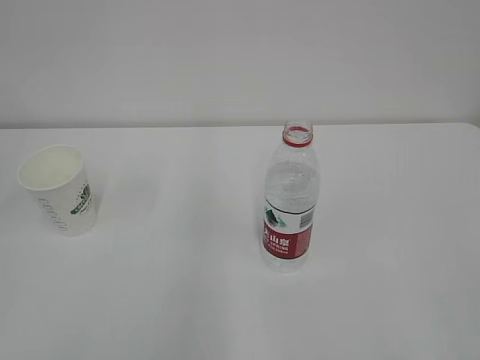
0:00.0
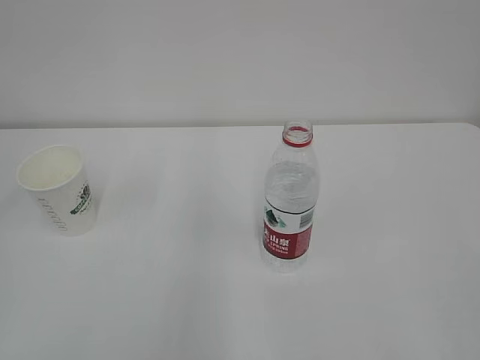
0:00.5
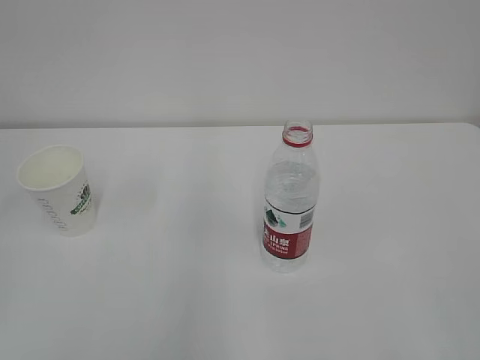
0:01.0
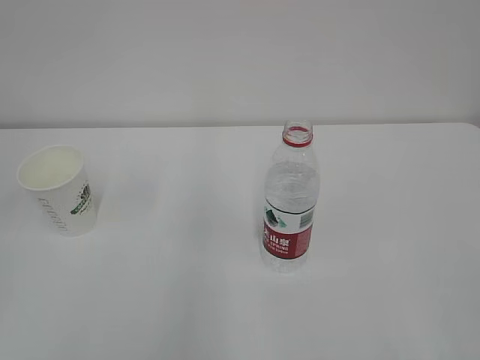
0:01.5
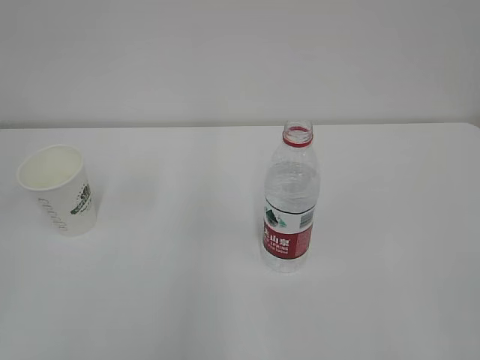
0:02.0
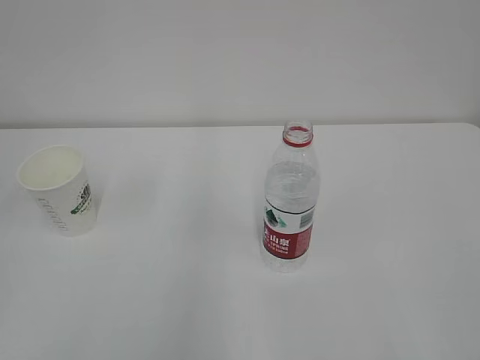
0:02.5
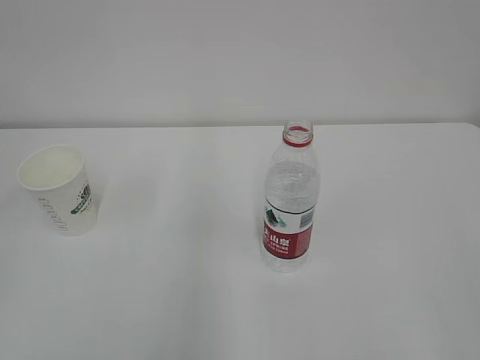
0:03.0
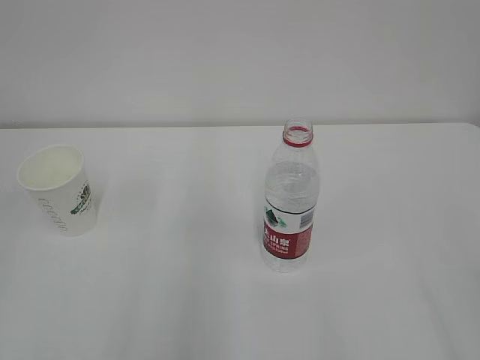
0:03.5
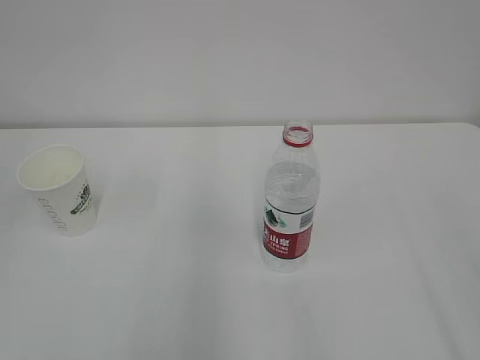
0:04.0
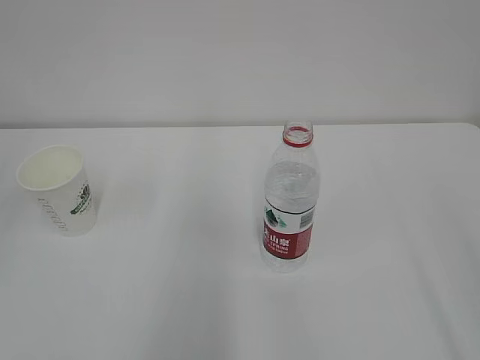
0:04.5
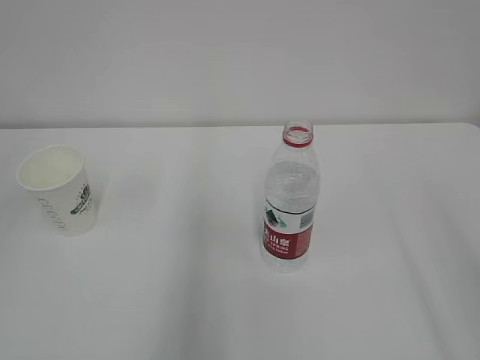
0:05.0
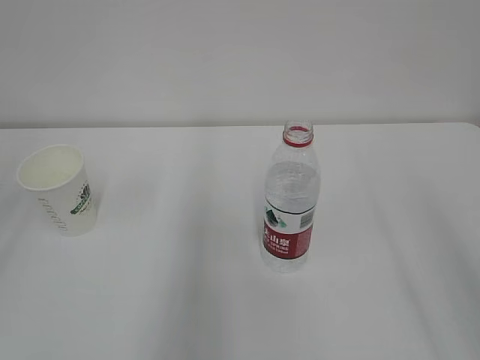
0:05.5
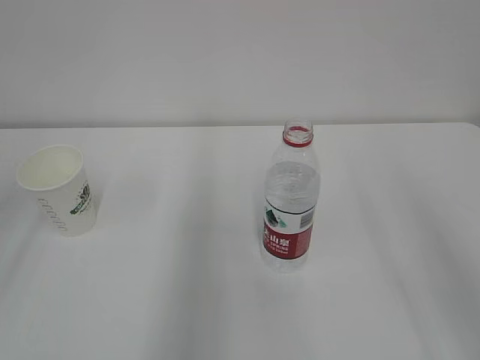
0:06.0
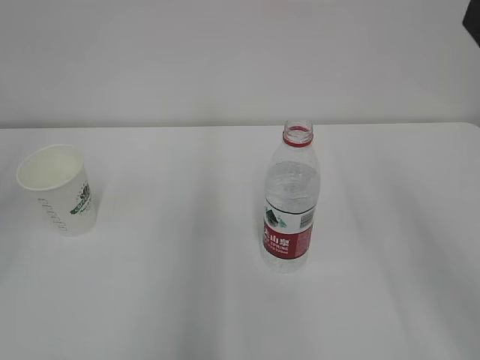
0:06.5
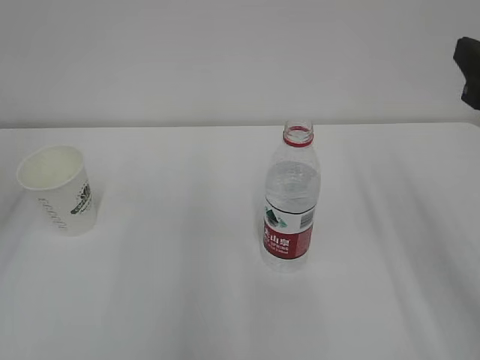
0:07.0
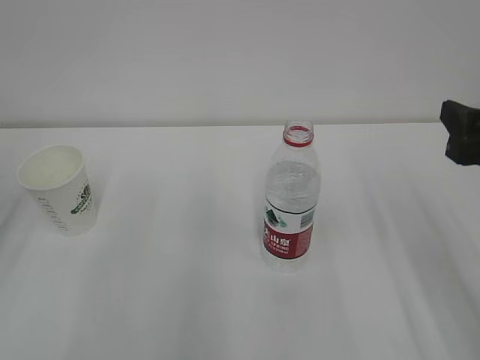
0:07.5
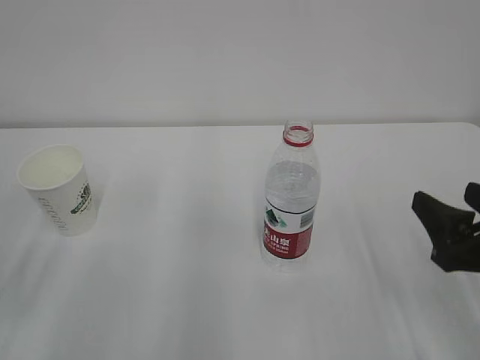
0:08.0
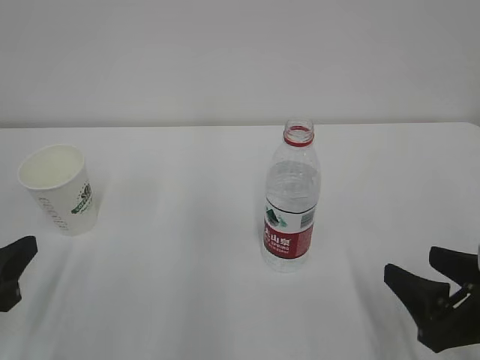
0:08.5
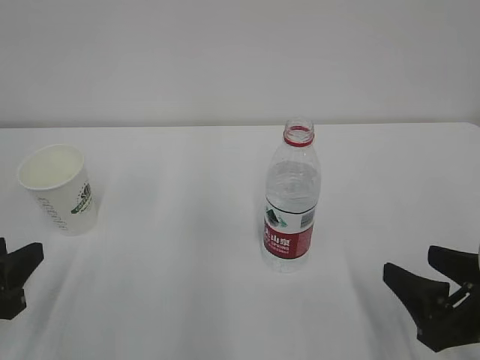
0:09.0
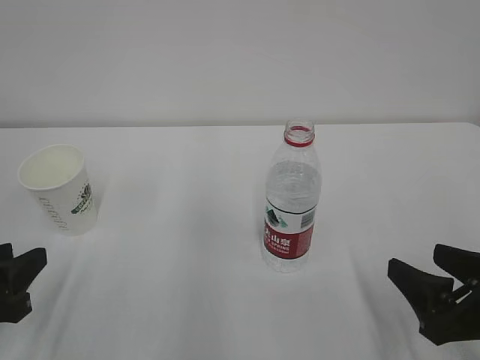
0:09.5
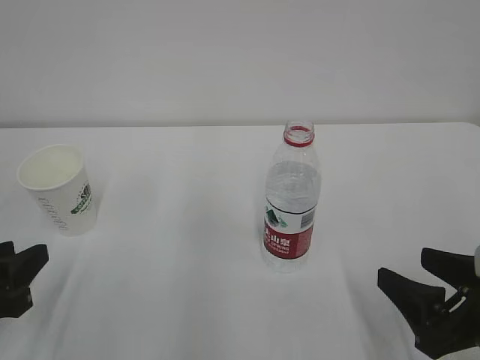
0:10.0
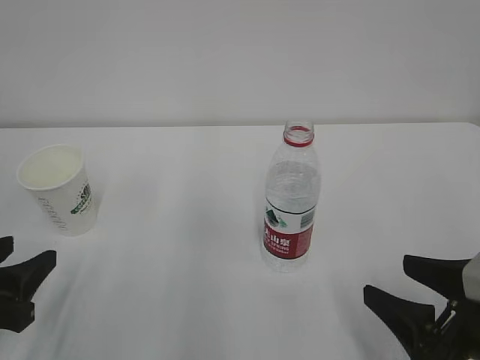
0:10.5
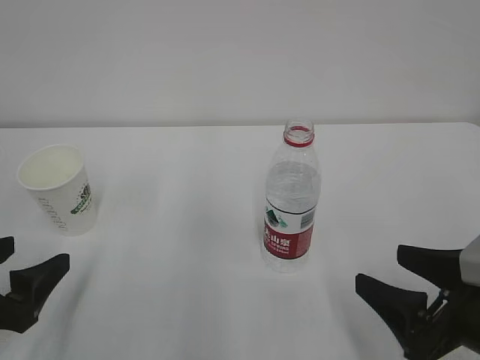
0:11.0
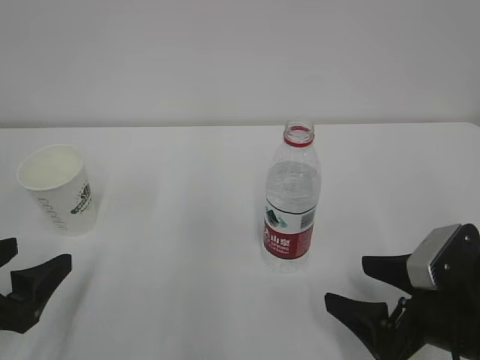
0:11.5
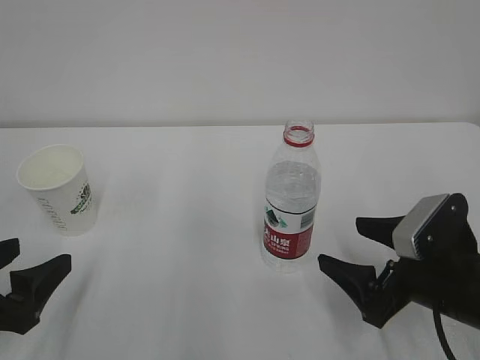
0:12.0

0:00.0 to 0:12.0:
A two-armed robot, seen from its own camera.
0:06.0 to 0:08.0: The right gripper travels downward by about 20 cm.
0:08.0 to 0:10.0: The right gripper moves some 5 cm.
0:10.0 to 0:12.0: The right gripper shifts about 5 cm forward, and opens up, while the left gripper opens up.

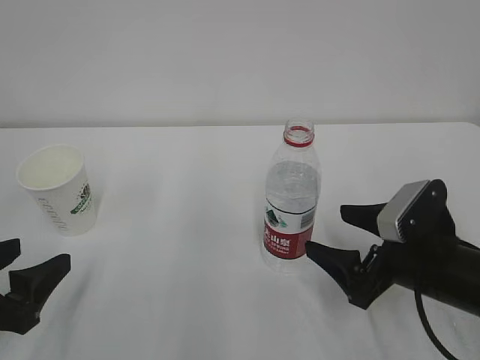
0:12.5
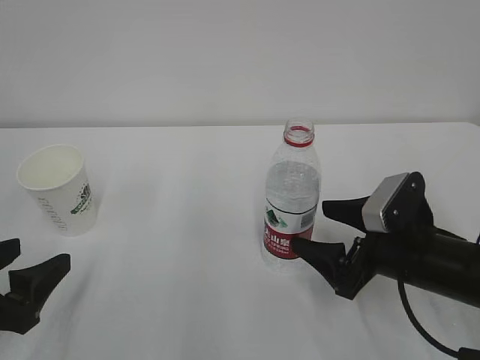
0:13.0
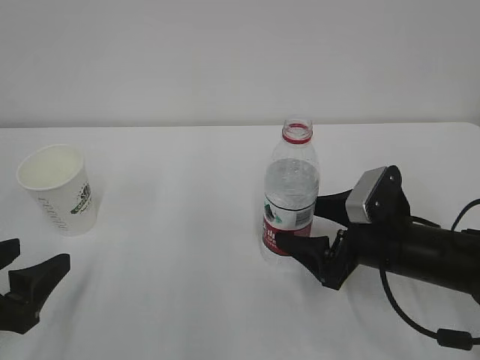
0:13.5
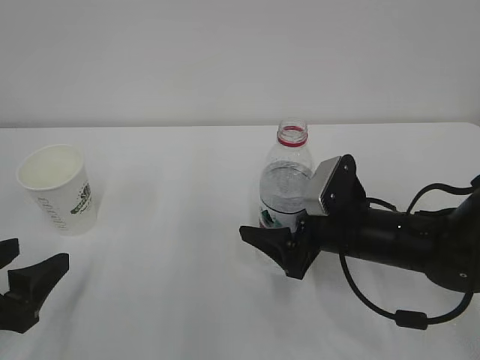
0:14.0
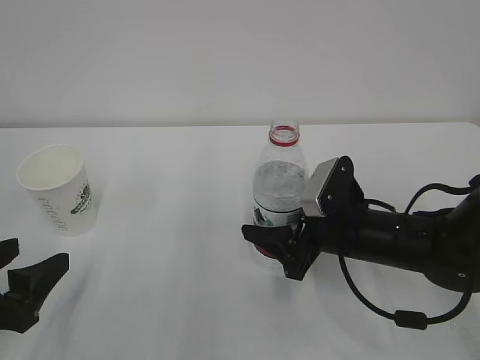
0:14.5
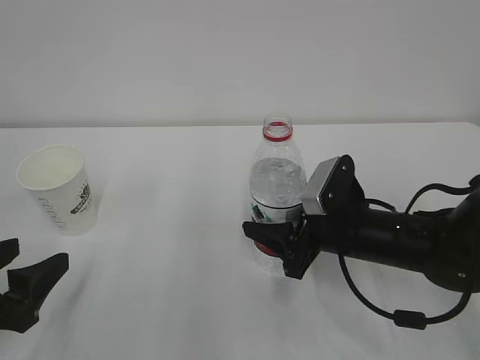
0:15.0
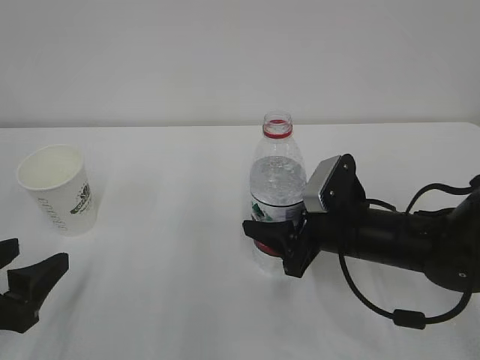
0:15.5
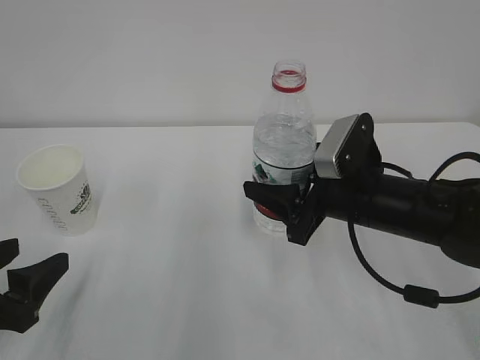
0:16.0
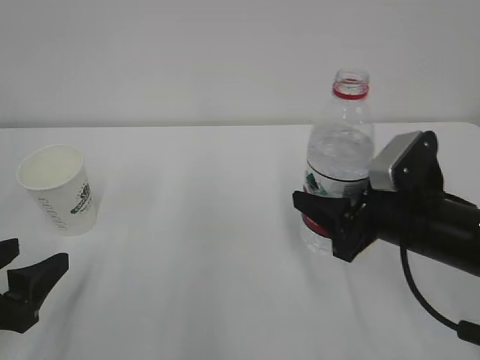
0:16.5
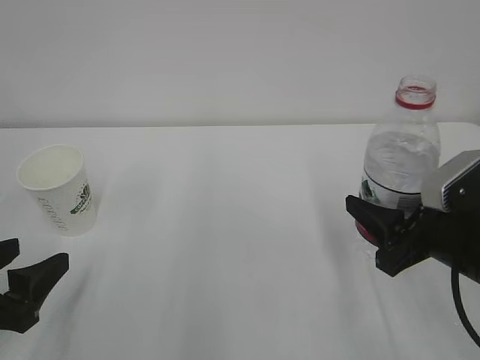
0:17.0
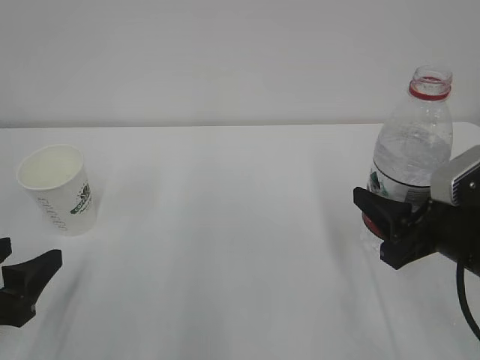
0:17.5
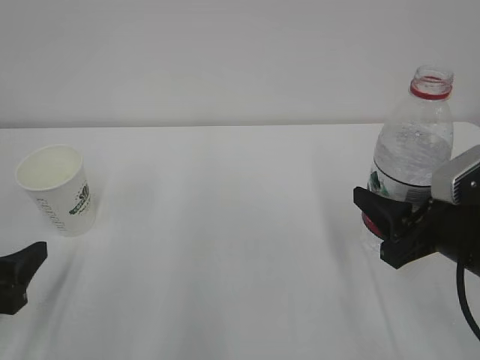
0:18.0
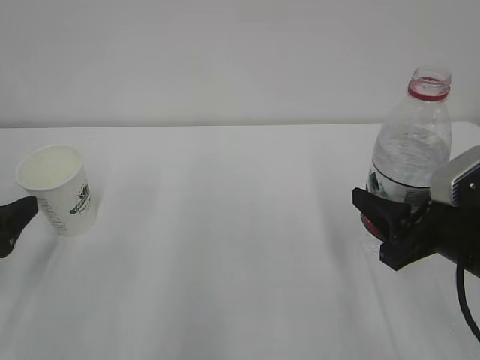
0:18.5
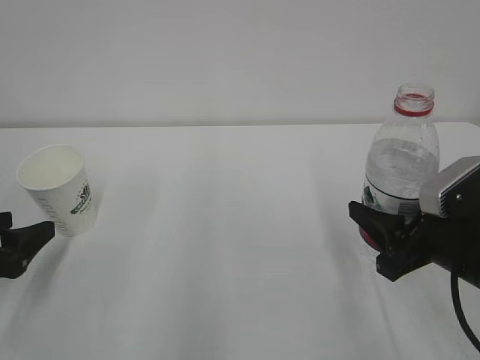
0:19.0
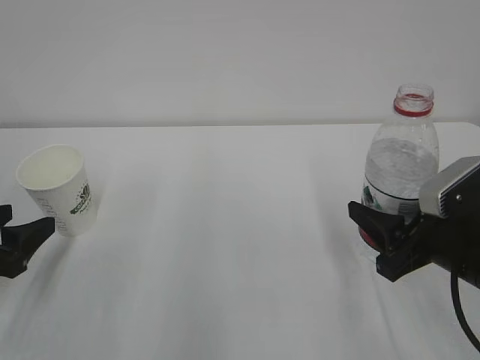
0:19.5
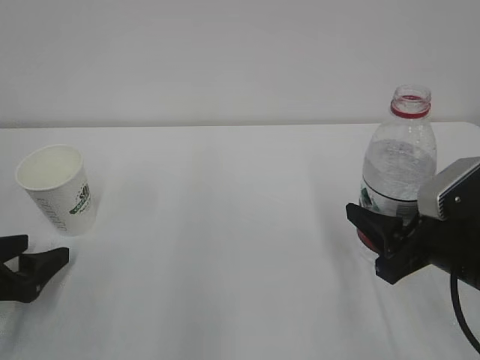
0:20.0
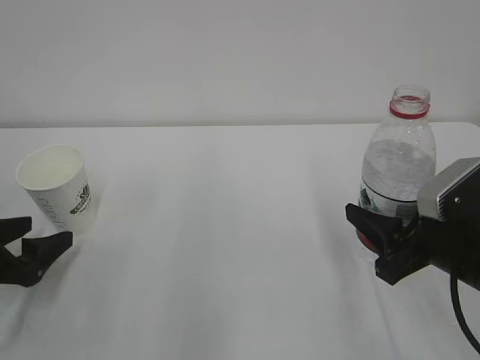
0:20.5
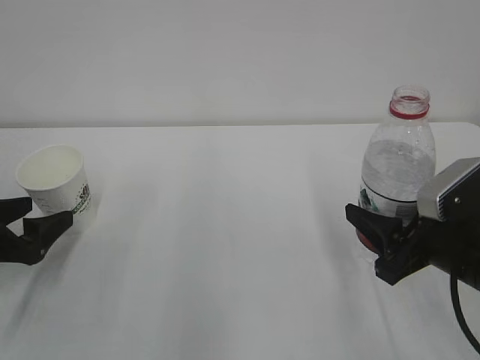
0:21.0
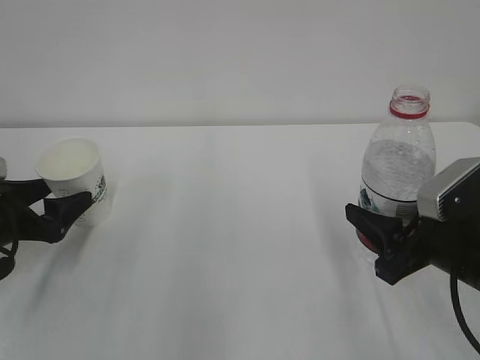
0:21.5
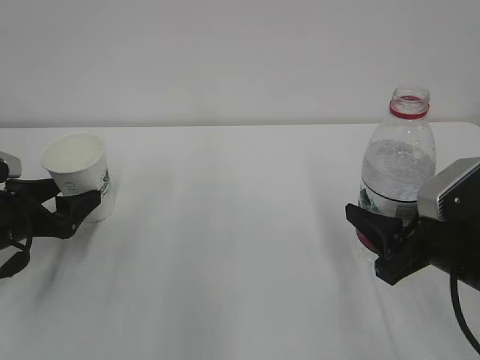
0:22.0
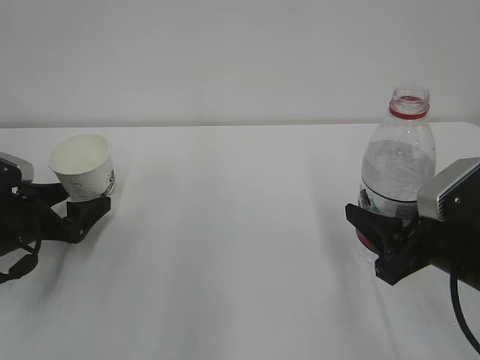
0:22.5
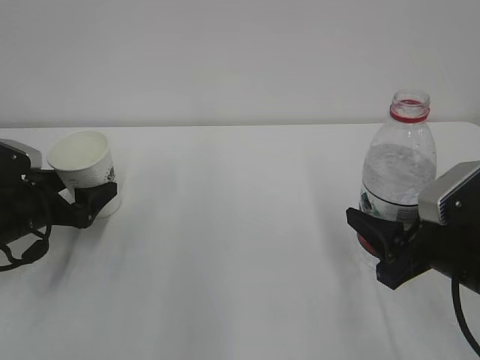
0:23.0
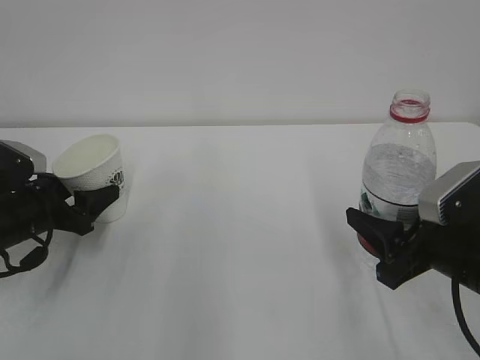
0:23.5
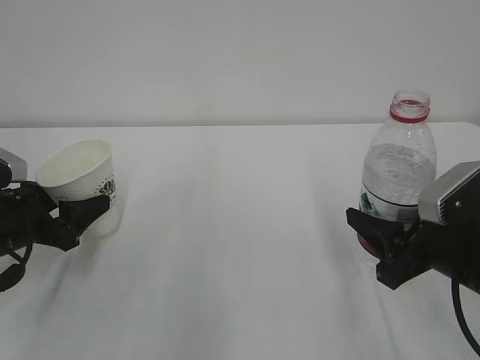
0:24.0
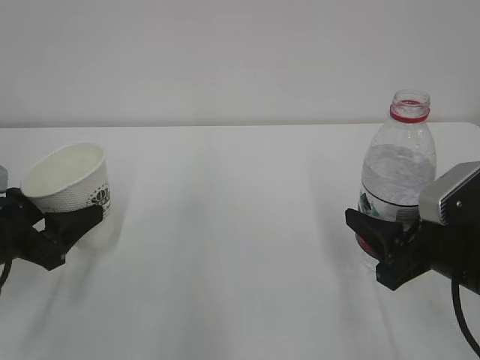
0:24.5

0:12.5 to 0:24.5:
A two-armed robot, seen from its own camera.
0:12.5 to 0:14.5: The right gripper is displaced forward and to the left by roughly 10 cm, and closes its fingers.
0:14.5 to 0:16.5: The right gripper moves upward, about 5 cm.
0:16.5 to 0:18.5: The right gripper moves roughly 5 cm. Meanwhile the left gripper moves forward and to the left, approximately 10 cm.
0:20.5 to 0:22.5: The left gripper is displaced forward by approximately 5 cm.
0:22.5 to 0:24.5: The left gripper moves backward, roughly 5 cm, and closes its fingers.

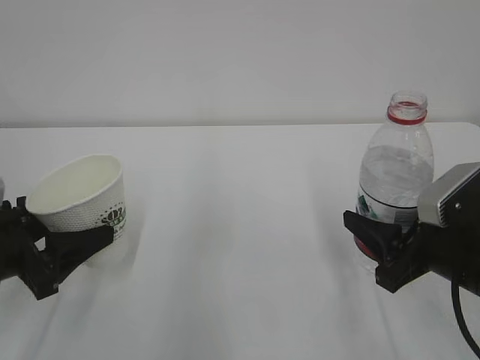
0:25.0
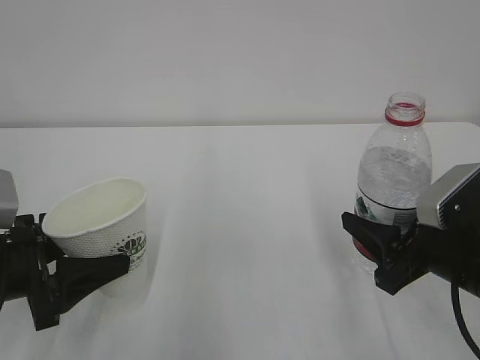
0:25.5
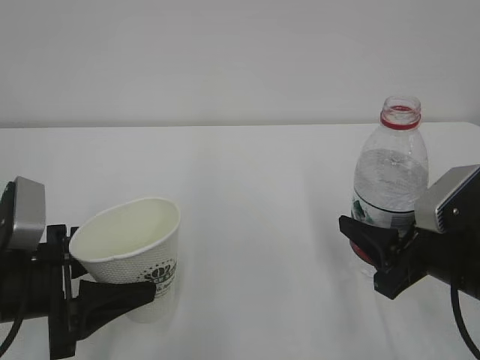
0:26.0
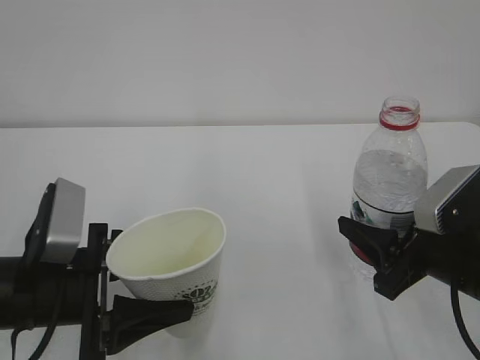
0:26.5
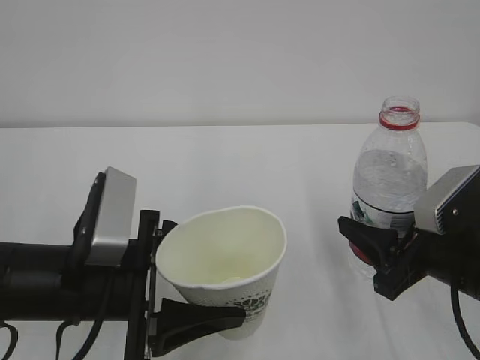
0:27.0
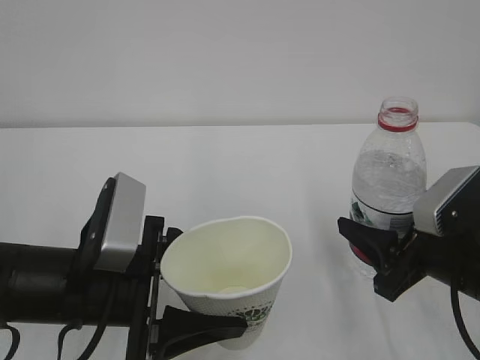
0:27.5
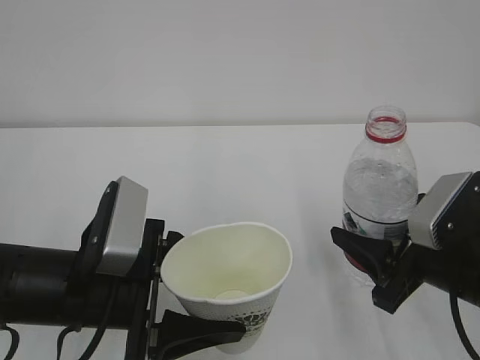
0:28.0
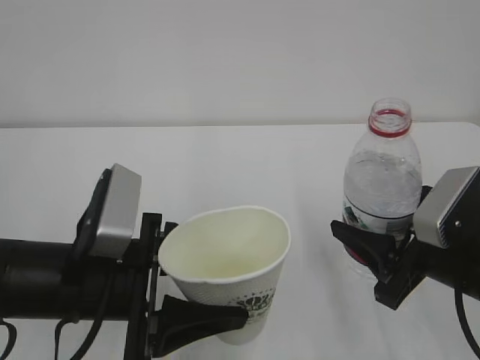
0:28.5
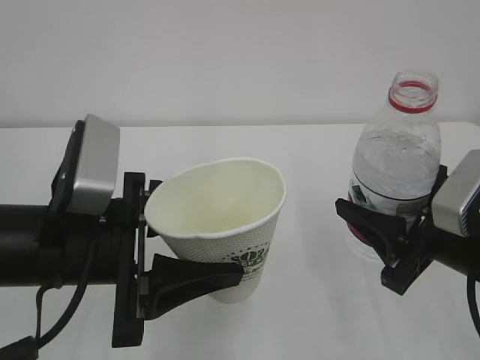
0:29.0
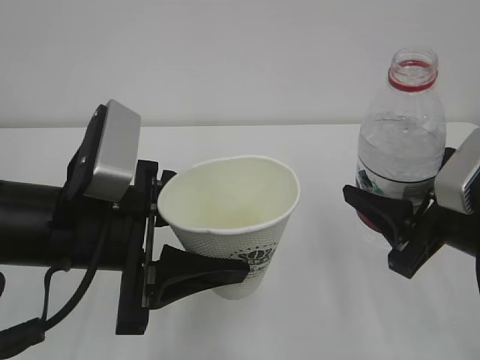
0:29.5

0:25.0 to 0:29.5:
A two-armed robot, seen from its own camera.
0:25.0 to 0:27.0: The left gripper shifts about 15 cm to the right.
0:27.0 to 0:29.5: Both grippers move upward, about 5 cm.
